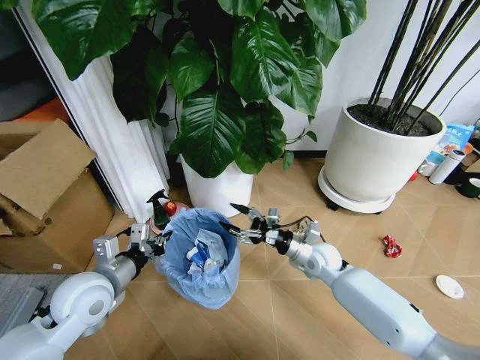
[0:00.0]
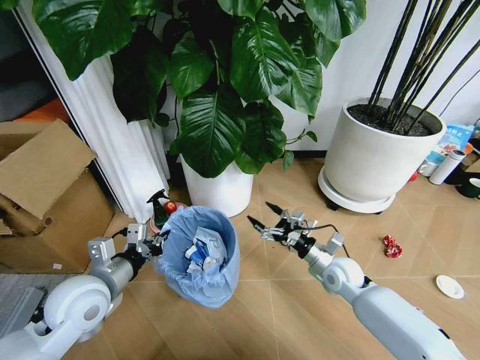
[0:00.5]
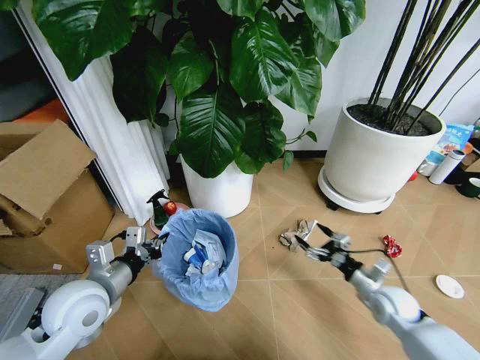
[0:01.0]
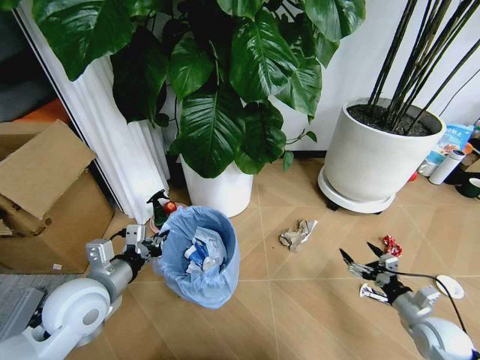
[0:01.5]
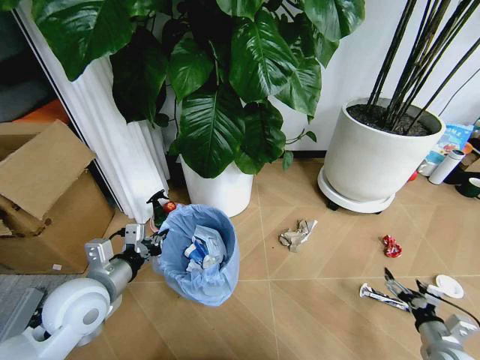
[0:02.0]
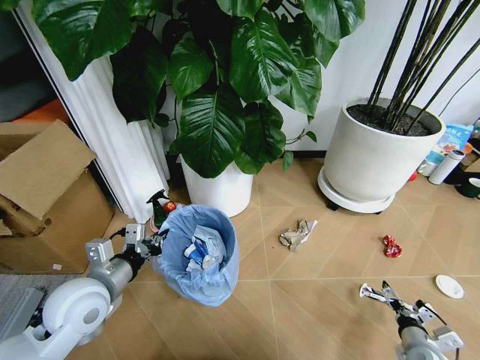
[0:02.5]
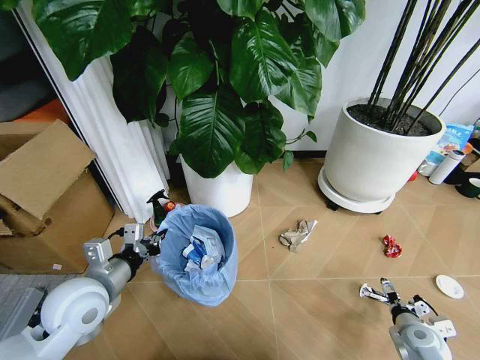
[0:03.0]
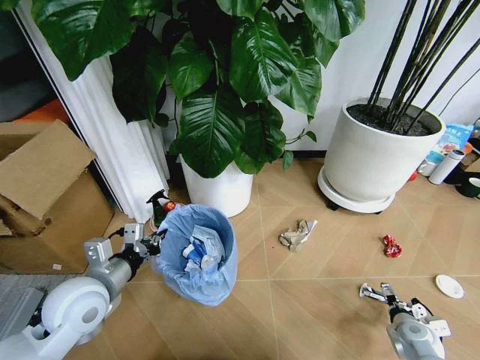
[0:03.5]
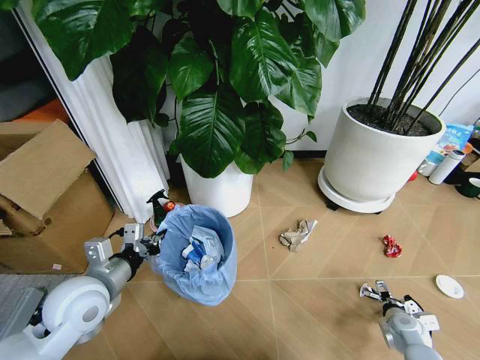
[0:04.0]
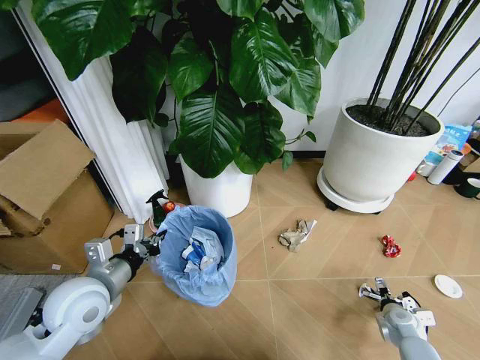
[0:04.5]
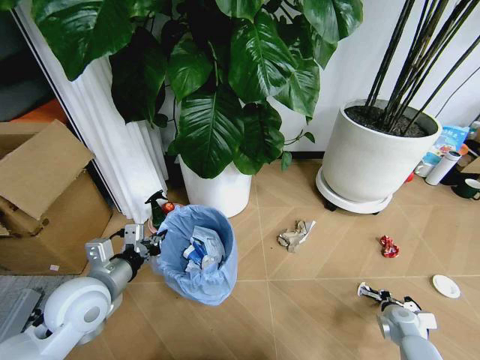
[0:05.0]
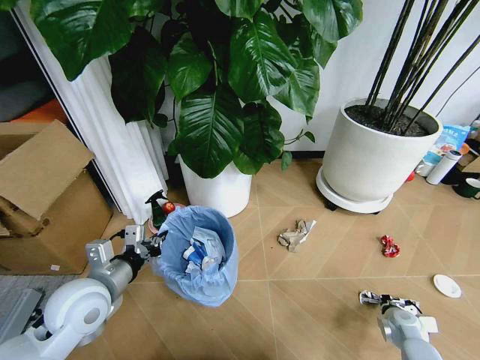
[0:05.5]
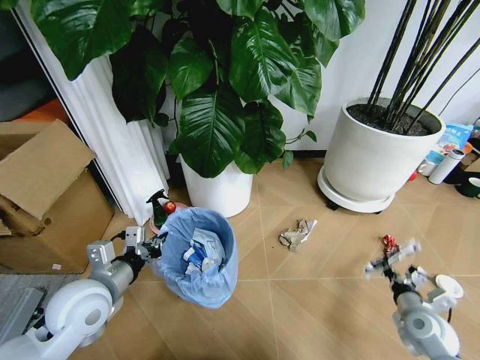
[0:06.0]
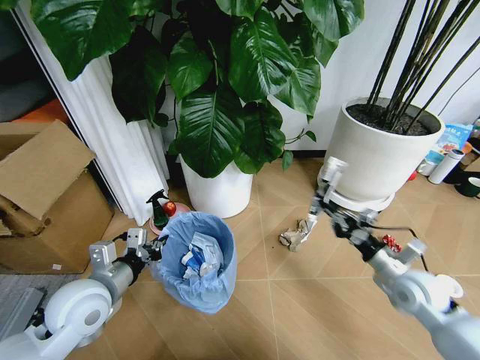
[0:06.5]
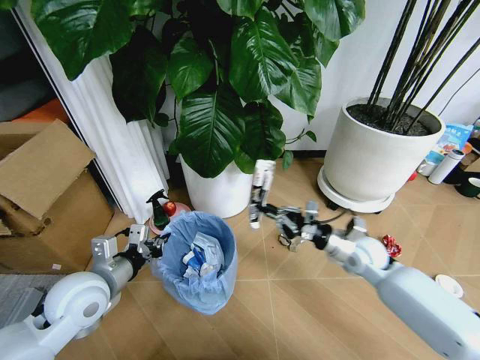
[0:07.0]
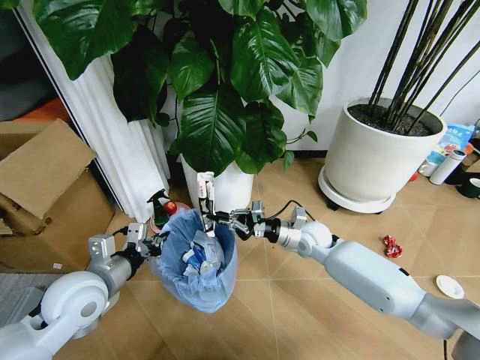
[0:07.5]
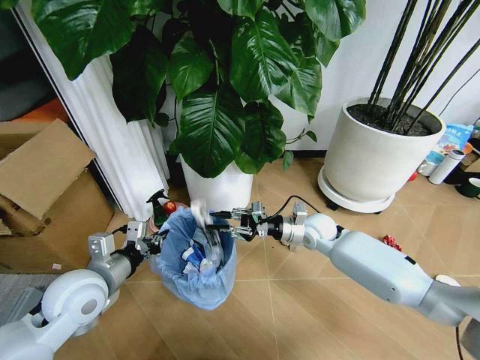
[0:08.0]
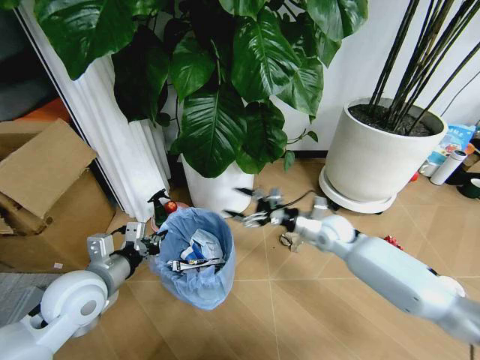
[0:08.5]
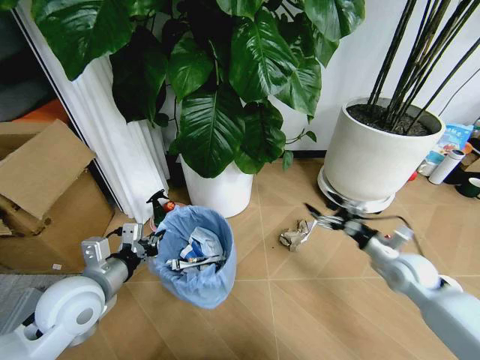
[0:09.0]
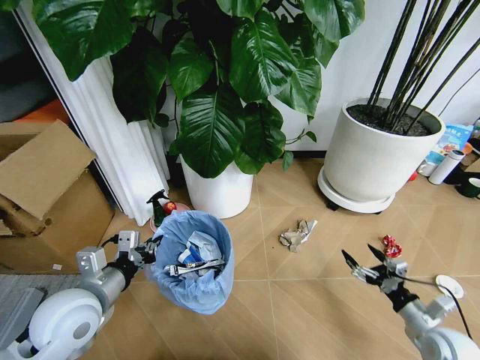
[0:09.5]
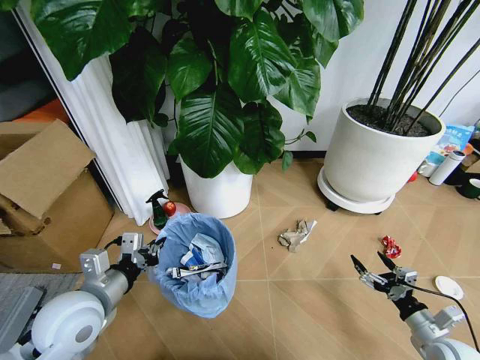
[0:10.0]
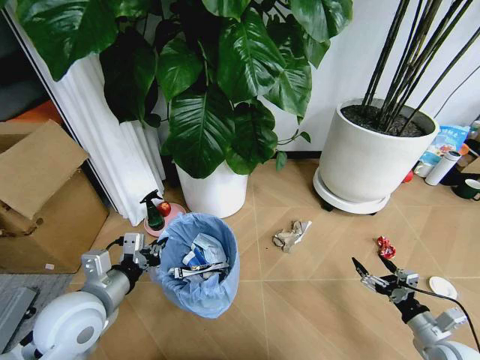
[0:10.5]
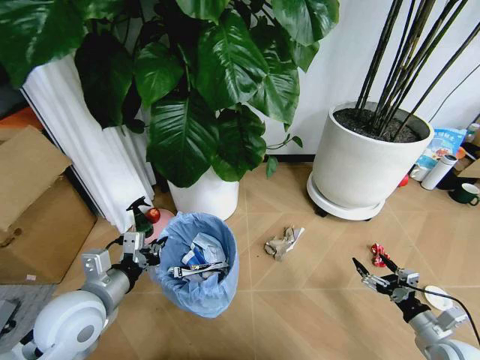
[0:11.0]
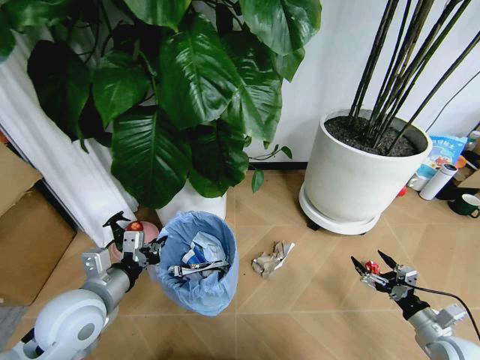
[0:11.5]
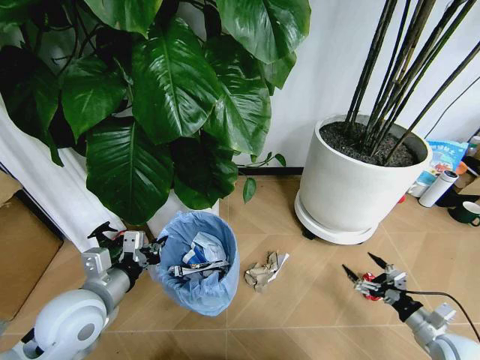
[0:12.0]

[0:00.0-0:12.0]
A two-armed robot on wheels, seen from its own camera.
Task of the whole recording: Pick up the trash bin and place the garbage on the floor into it.
0:00.0 to 0:02.0: The right gripper travels to the right and backward by some 35 cm.
0:02.0 to 0:04.0: The right gripper shifts approximately 10 cm forward and downward.
0:04.0 to 0:06.0: The right gripper moves upward, roughly 10 cm, and closes.
0:06.0 to 0:08.0: The right gripper moves forward, to the left and upward, approximately 35 cm, and opens its fingers.
0:08.0 to 0:10.0: The right gripper moves backward and to the right, about 40 cm, and opens up.

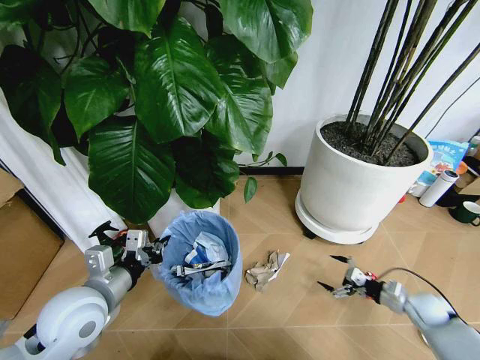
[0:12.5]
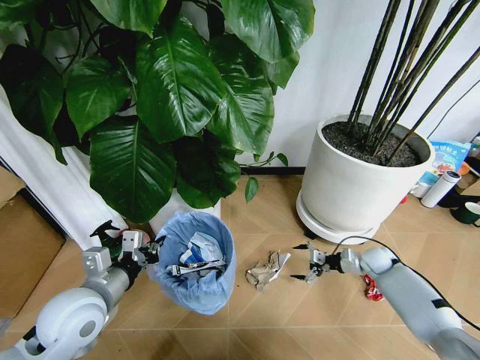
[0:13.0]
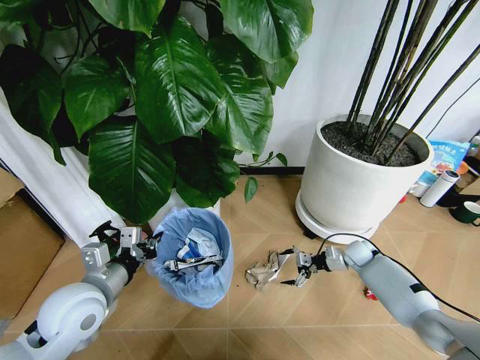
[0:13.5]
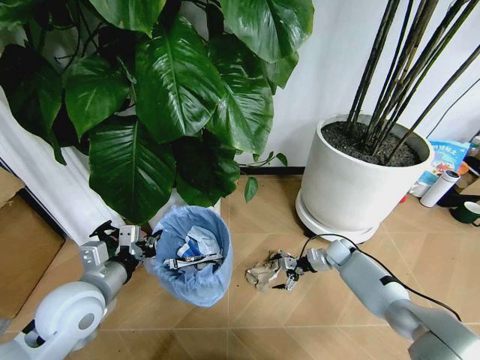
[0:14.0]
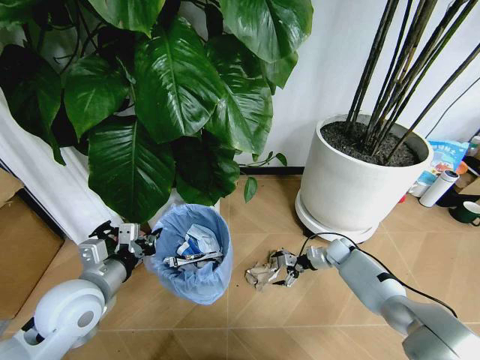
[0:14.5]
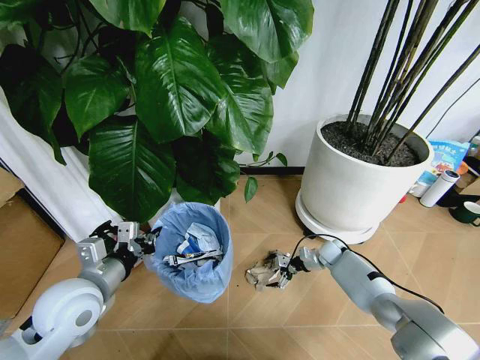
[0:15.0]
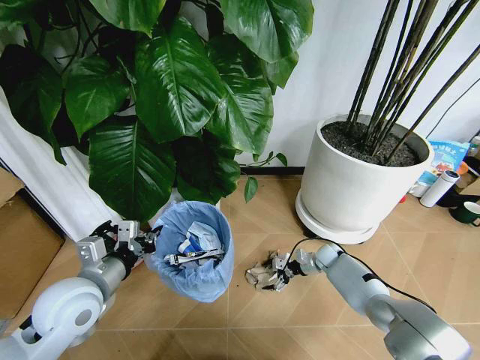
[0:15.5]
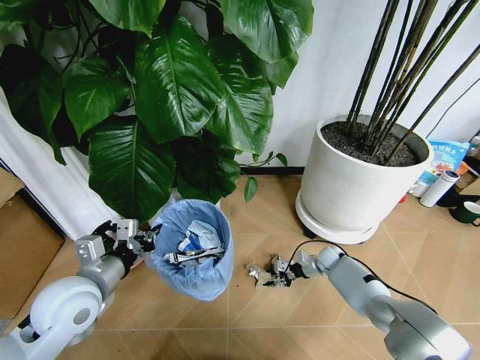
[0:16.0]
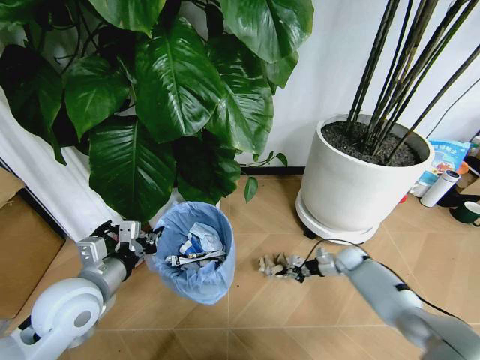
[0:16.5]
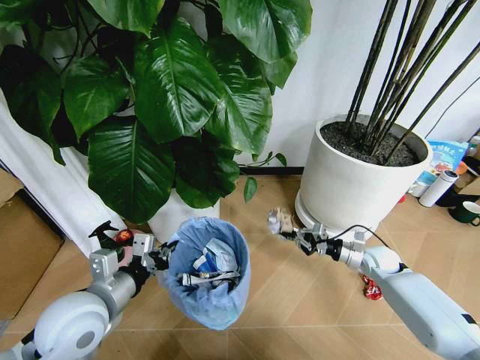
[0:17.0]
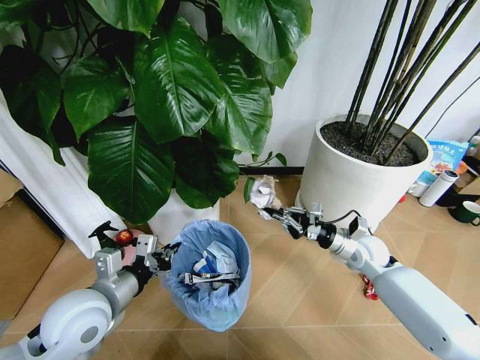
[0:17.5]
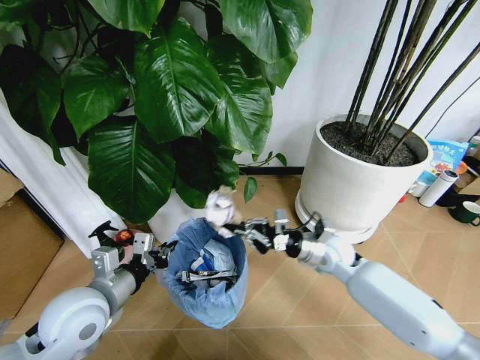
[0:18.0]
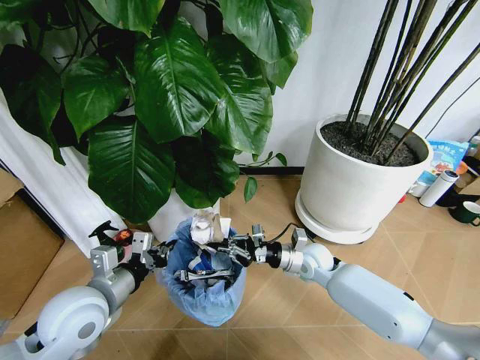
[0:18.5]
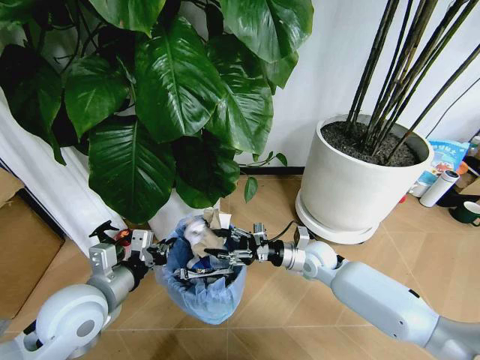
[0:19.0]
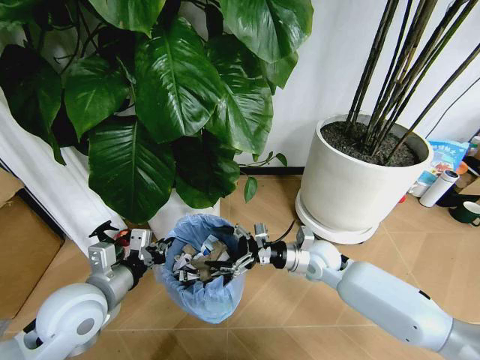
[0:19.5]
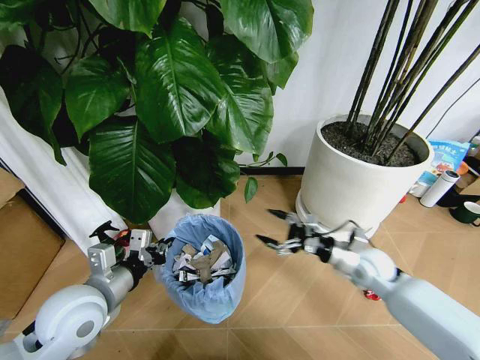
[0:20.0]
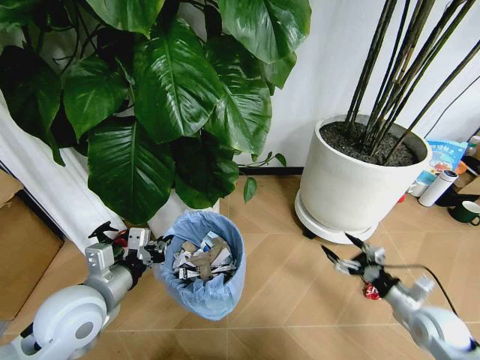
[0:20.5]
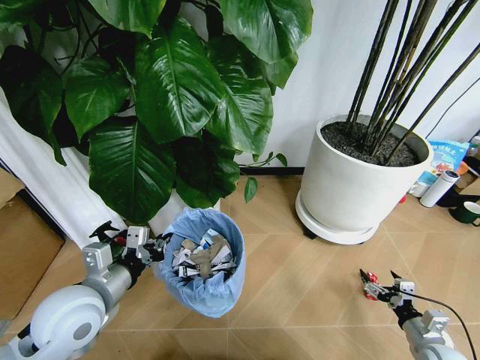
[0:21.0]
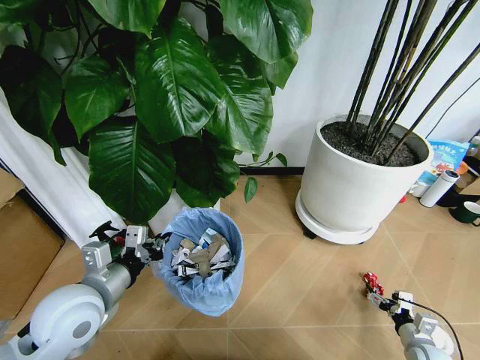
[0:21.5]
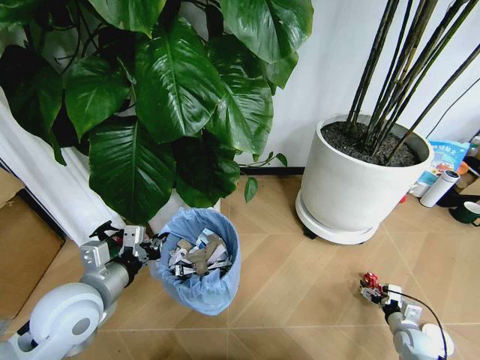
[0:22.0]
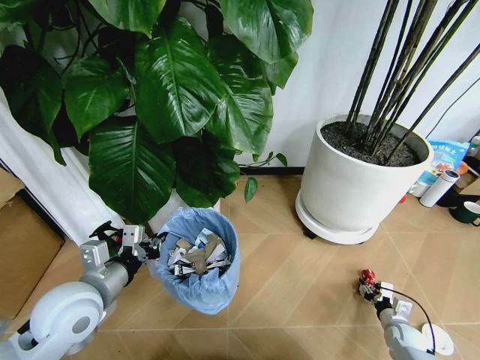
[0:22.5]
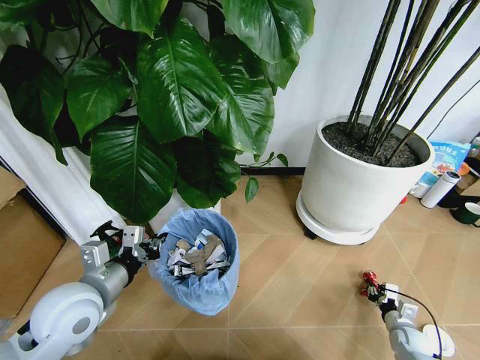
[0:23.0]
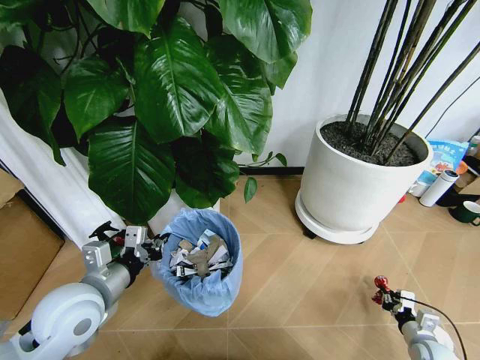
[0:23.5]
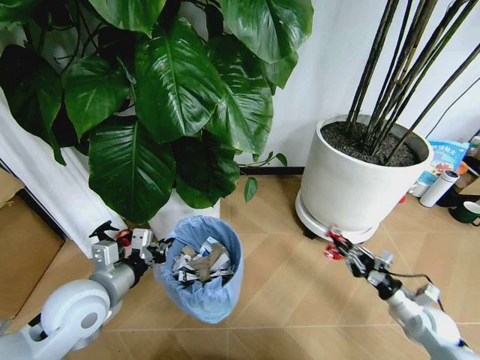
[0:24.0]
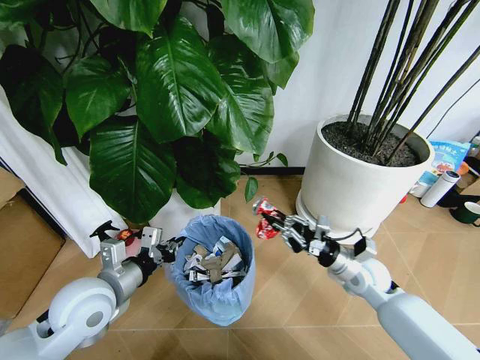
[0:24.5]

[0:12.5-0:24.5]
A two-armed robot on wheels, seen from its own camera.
Task of the whole recording: Pick up the trash bin and place the garbage on the floor into it.
0:12.5 to 0:14.5: The right gripper travels forward and to the left by about 25 cm.
0:14.5 to 0:16.5: The right gripper closes its fingers.
0:16.5 to 0:18.5: The right gripper is displaced to the left and upward by approximately 20 cm.
0:18.5 to 0:20.5: The right gripper heads to the right and backward, covering some 30 cm, and opens its fingers.
0:20.5 to 0:22.5: The right gripper heads downward, covering some 20 cm, and closes up.
0:22.5 to 0:24.5: The right gripper goes roughly 30 cm upward, to the left and forward, and closes its fingers.

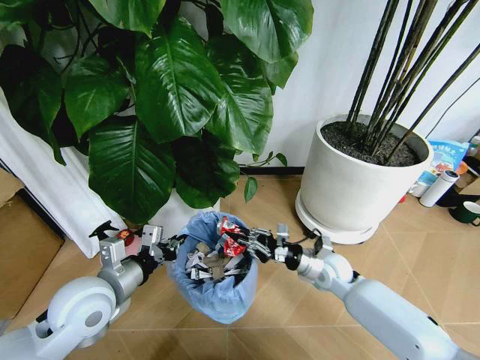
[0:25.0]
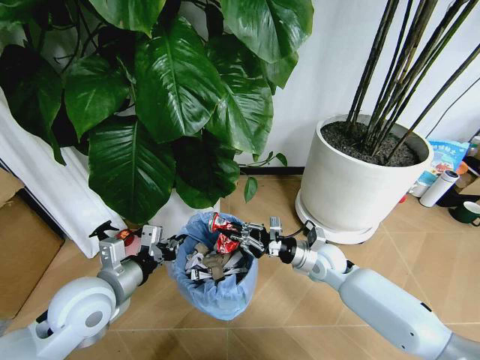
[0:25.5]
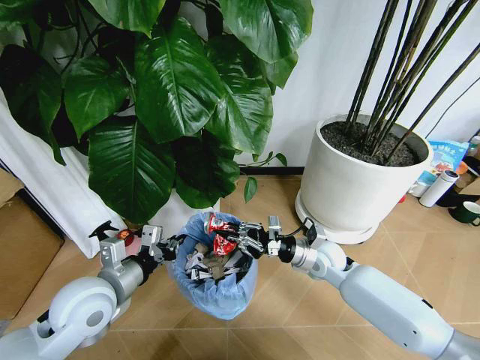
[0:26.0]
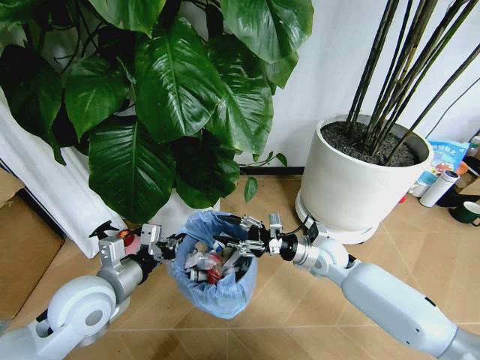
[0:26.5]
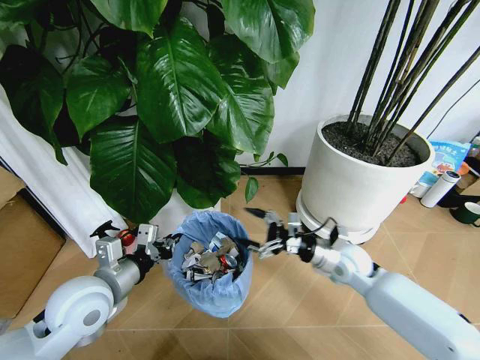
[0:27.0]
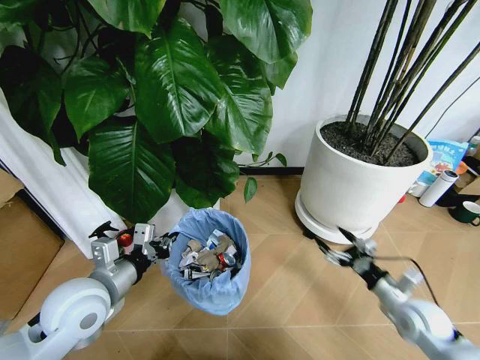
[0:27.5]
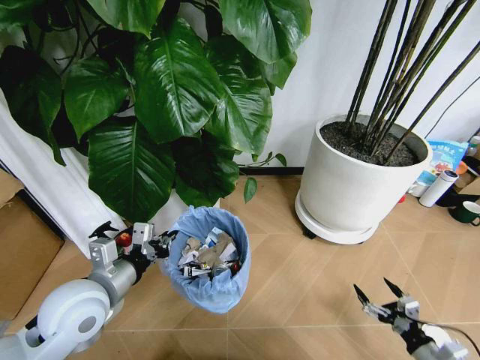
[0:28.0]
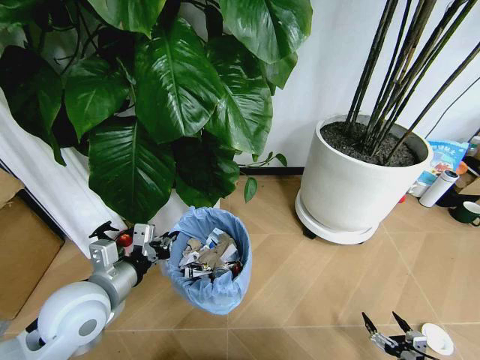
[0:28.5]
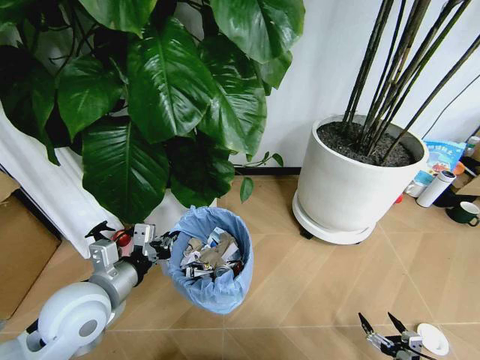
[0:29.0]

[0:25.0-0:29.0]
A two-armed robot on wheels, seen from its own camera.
Task of the whole recording: Pick up the trash bin and place the garbage on the floor into it.
0:25.0 to 0:27.0: The right gripper goes roughly 5 cm upward, and opens its fingers.
0:27.0 to 0:29.0: The right gripper heads backward, to the right and downward, covering about 40 cm.
